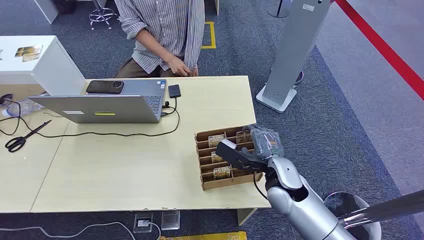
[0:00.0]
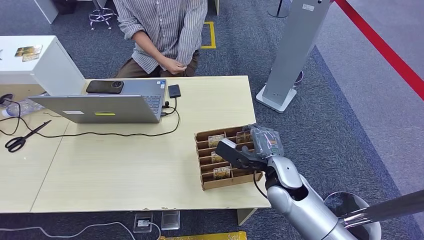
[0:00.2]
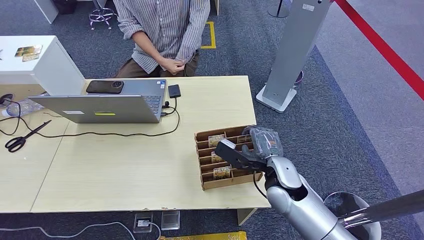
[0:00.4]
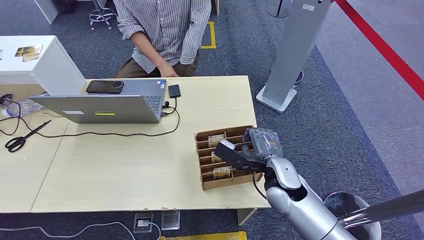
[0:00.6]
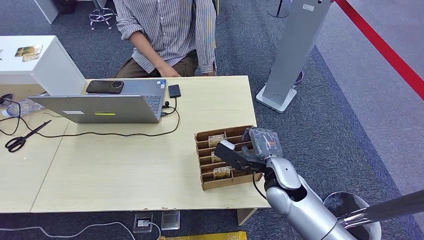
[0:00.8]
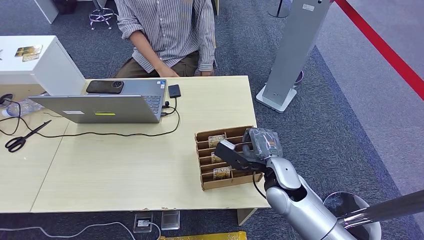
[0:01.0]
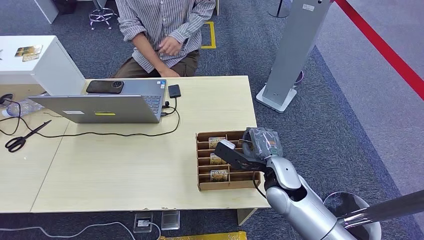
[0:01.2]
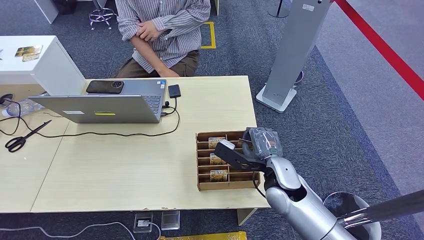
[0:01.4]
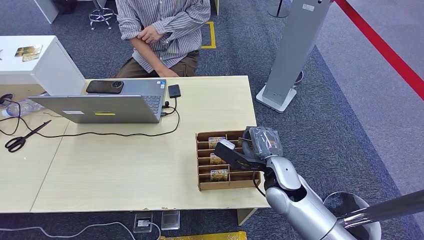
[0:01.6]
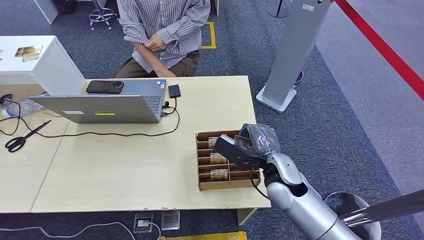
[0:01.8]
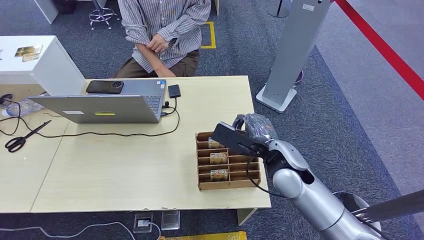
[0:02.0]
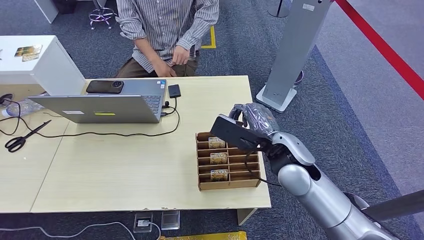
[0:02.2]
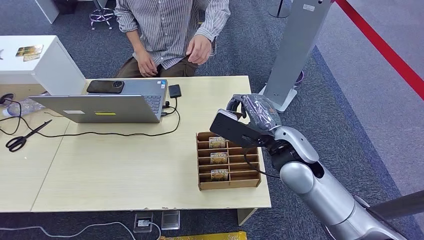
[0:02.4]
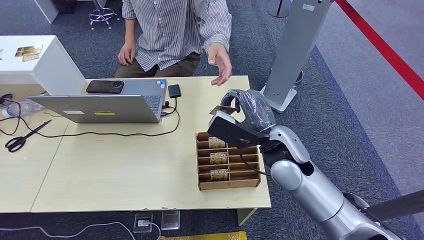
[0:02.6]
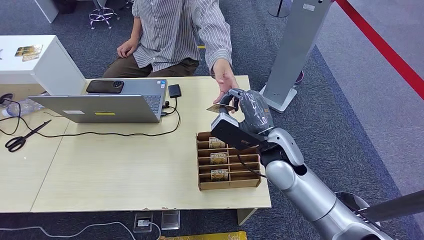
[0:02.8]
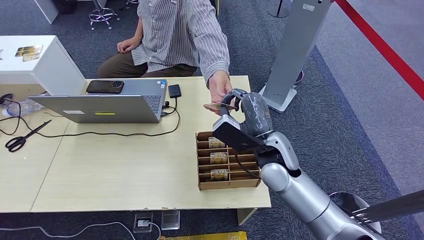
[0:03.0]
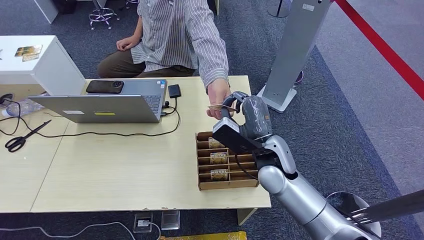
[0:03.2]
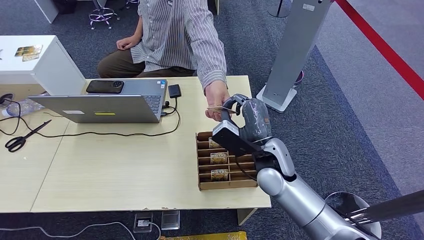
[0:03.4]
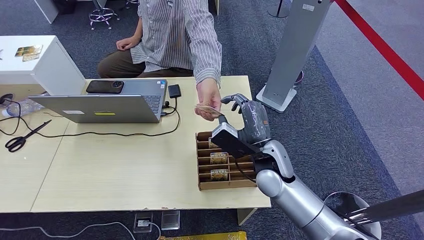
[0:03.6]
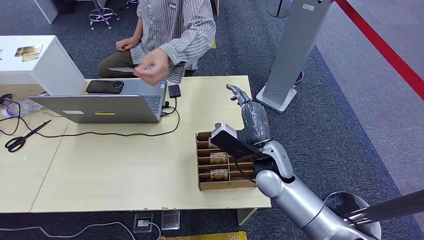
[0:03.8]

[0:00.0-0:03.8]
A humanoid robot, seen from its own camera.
Step, 0:00.0 to 0:01.8: Pick up the key card from the card box.
Step, 0:02.6 to 0:03.8: Hand the key card to the target.
0:01.2 to 0:02.6: The right hand shifts some 10 cm upward.
0:02.6 to 0:03.8: The right hand shifts roughly 5 cm downward.
